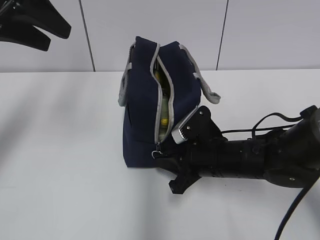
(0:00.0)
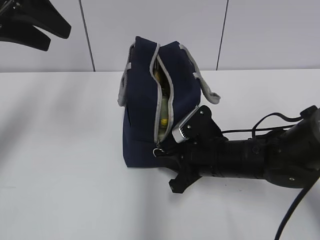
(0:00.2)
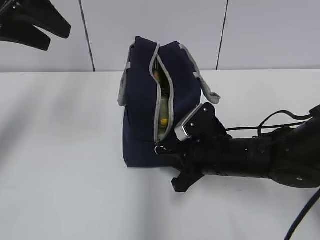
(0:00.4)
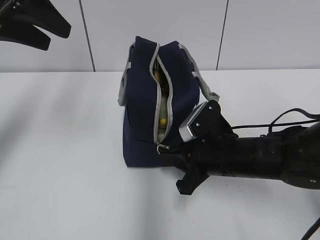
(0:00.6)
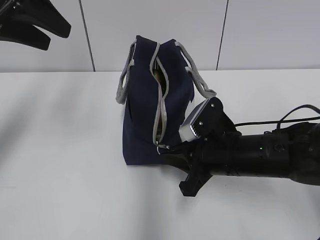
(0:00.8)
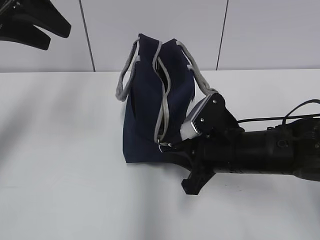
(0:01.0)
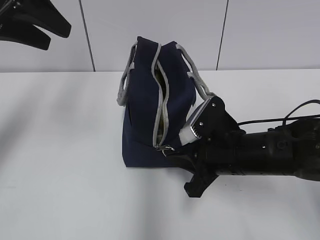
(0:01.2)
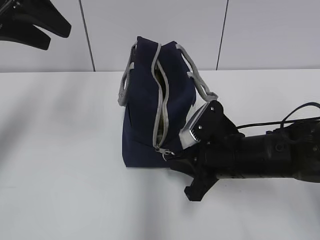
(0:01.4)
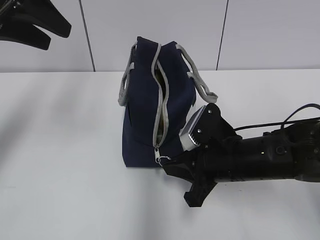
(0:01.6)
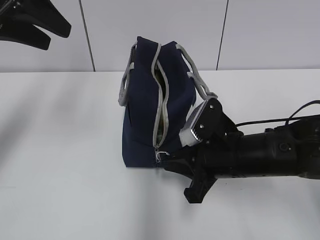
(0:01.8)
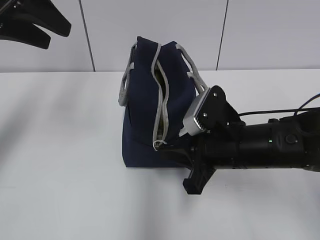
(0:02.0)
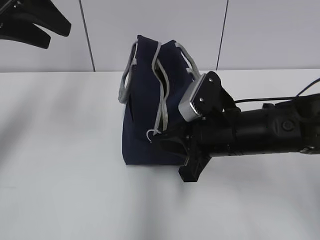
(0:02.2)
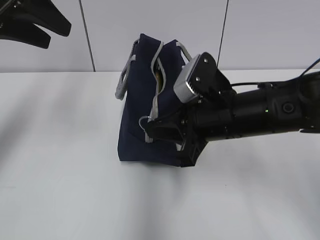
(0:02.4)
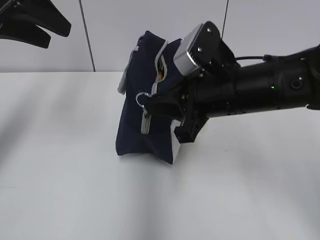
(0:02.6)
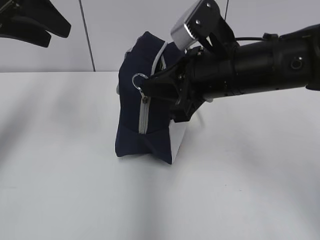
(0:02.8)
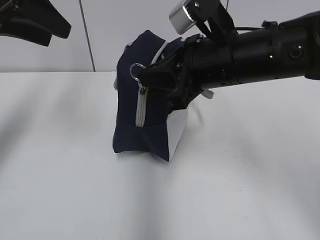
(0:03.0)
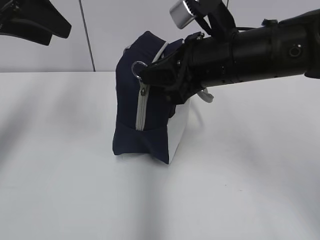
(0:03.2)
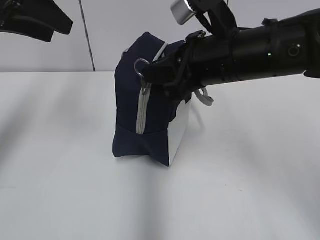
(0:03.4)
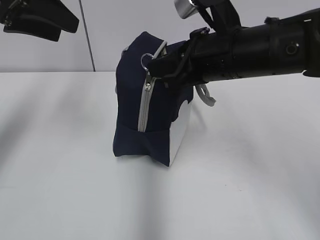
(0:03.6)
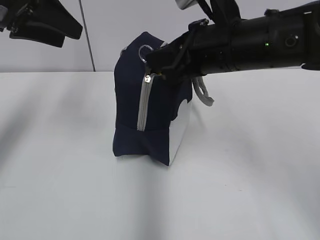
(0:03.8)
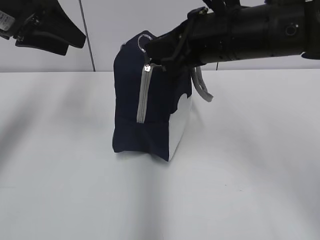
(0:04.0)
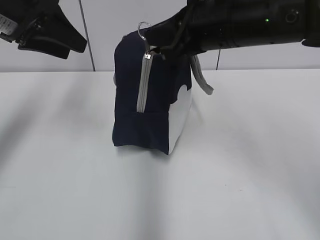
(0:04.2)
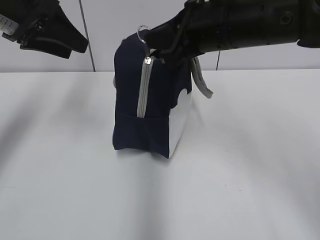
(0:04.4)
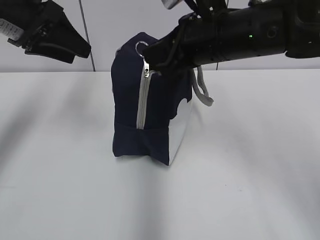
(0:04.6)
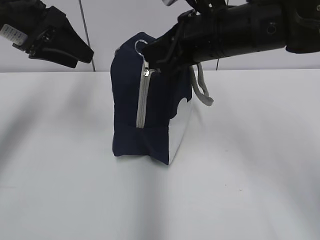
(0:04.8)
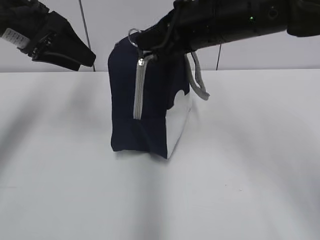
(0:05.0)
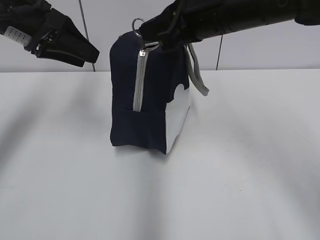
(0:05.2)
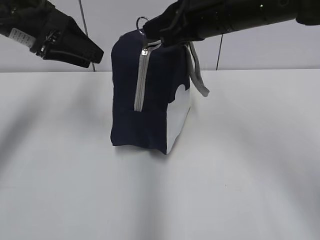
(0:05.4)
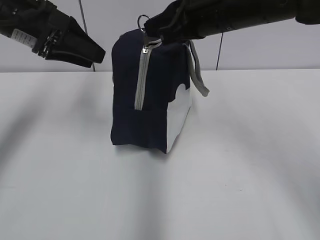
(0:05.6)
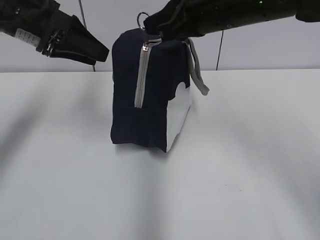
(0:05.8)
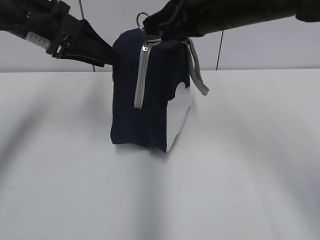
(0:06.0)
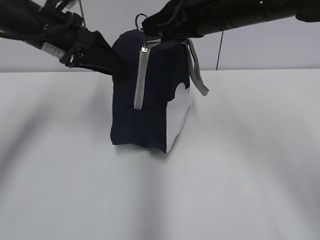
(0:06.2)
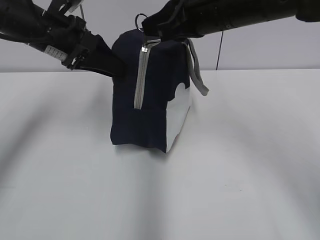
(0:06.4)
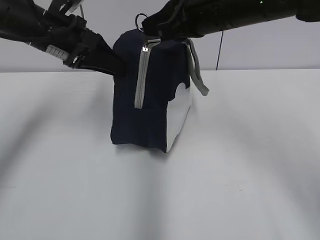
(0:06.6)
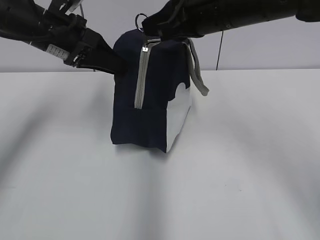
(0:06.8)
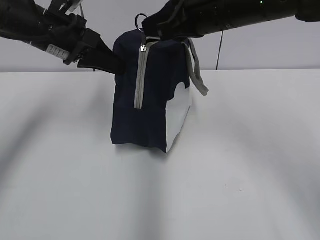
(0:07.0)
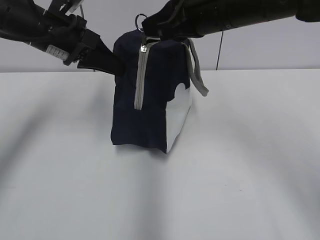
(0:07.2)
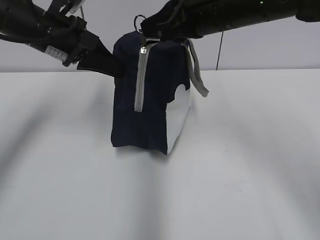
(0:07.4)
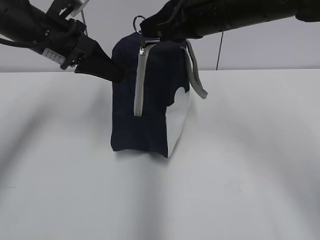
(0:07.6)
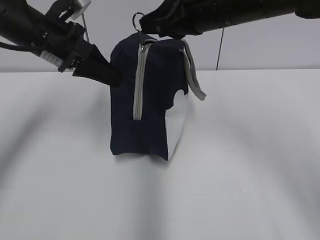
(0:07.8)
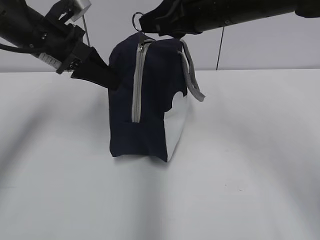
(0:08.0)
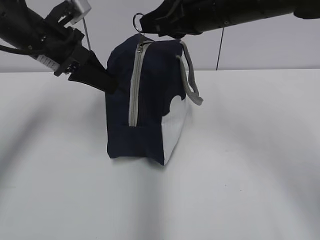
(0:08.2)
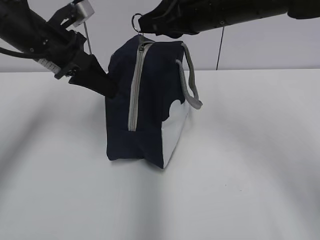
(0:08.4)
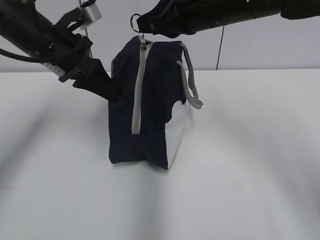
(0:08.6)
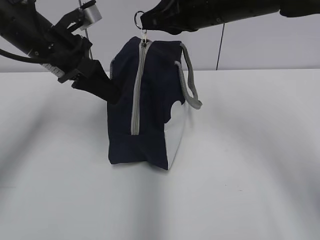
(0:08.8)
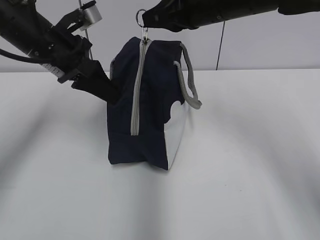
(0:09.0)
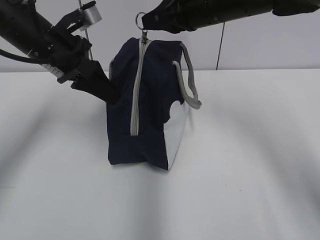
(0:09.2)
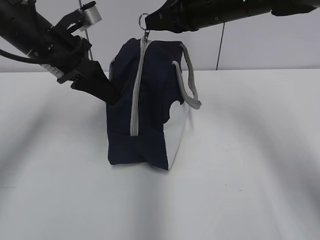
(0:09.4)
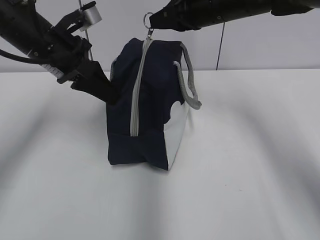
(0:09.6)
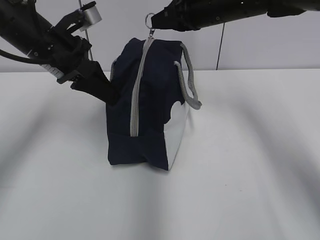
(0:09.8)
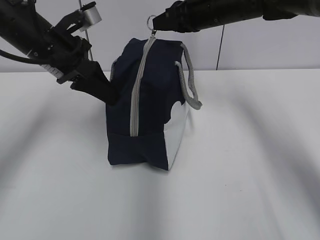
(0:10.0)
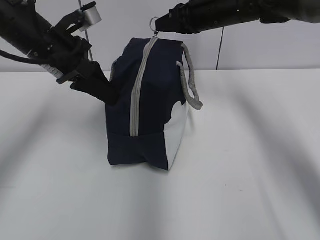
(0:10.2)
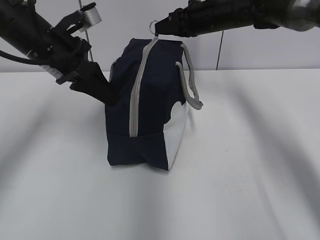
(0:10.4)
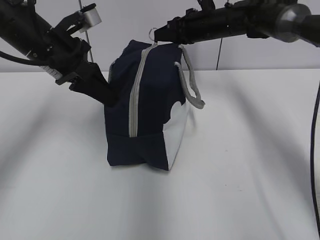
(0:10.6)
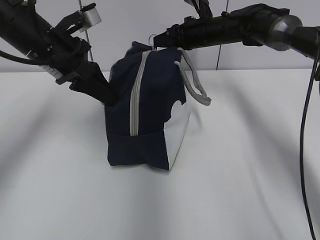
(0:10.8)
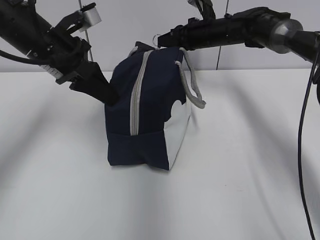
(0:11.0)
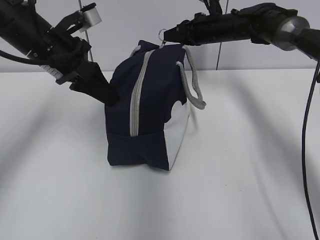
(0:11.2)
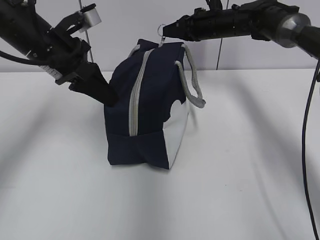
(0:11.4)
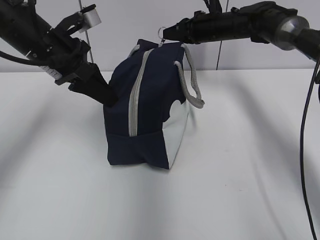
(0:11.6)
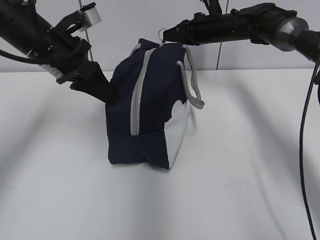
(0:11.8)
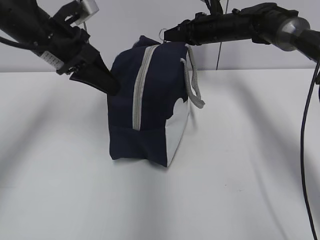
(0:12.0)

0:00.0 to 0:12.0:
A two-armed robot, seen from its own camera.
0:00.0 to 0:01.6: The grippers stay close to where they were, moving slightly.
0:01.6 to 0:03.0: The right gripper shifts roughly 15 cm upward.
0:03.0 to 0:04.4: The grippers make only small movements.
0:04.4 to 0:06.0: There are only small adjustments of the grippers.
0:06.0 to 0:07.6: The left gripper closes its fingers.
0:07.6 to 0:09.0: The grippers make only small movements.
0:09.0 to 0:10.4: The right gripper heads forward and downward, covering some 15 cm.
0:10.4 to 0:12.0: The right gripper ends up approximately 5 cm from where it was.

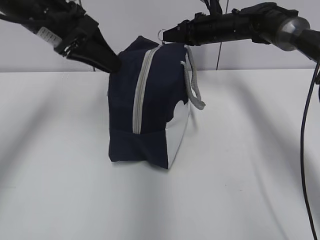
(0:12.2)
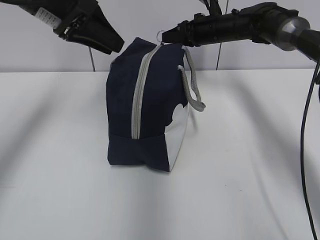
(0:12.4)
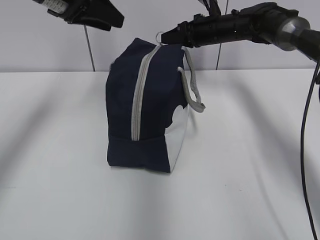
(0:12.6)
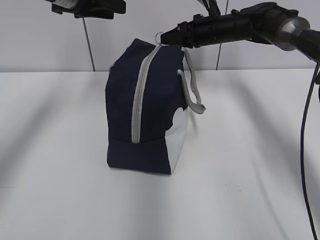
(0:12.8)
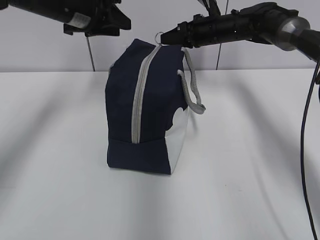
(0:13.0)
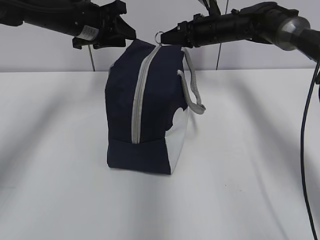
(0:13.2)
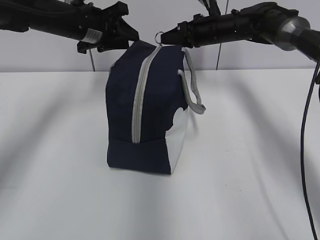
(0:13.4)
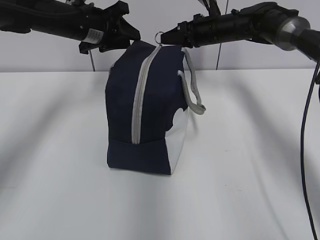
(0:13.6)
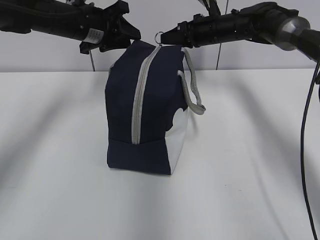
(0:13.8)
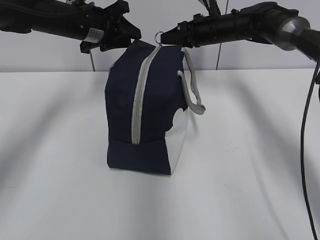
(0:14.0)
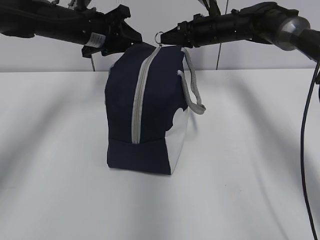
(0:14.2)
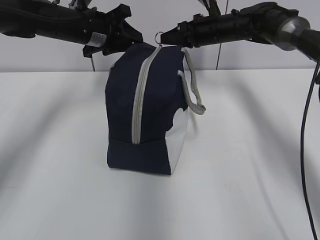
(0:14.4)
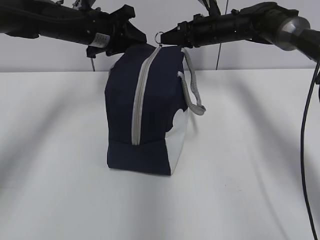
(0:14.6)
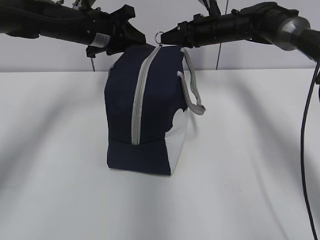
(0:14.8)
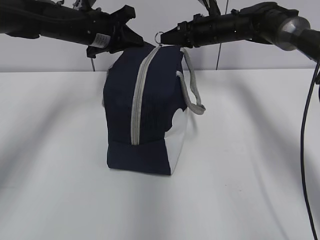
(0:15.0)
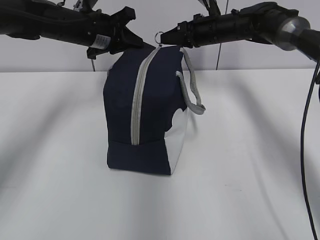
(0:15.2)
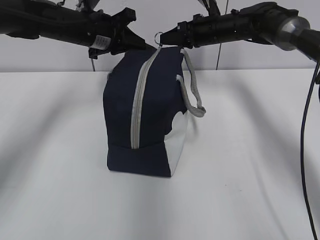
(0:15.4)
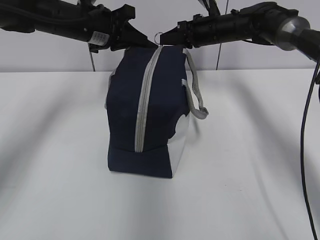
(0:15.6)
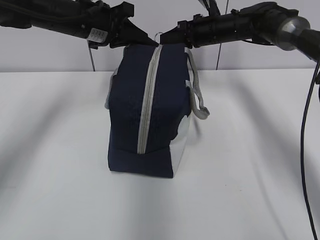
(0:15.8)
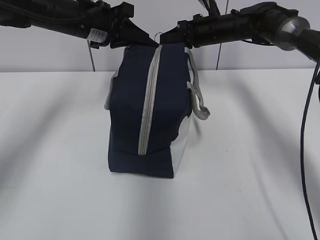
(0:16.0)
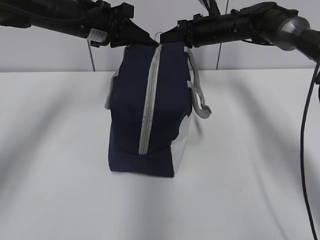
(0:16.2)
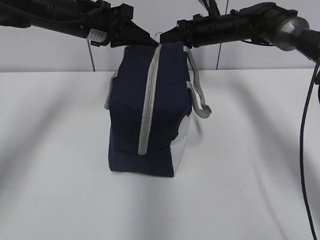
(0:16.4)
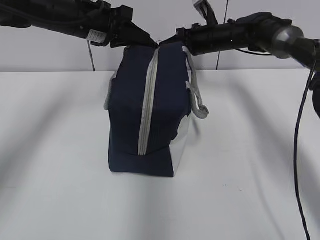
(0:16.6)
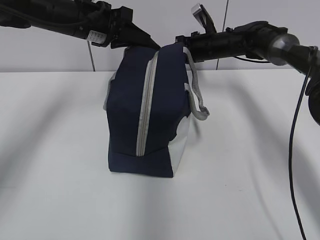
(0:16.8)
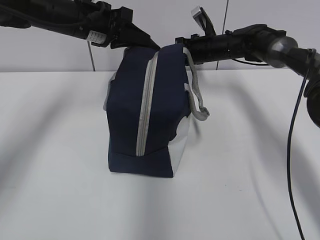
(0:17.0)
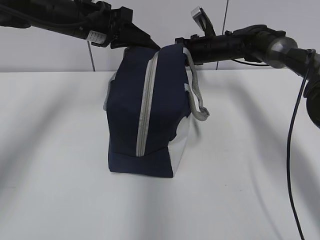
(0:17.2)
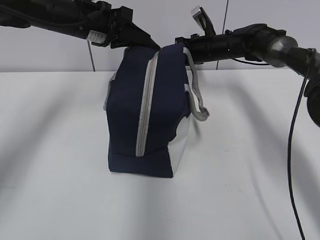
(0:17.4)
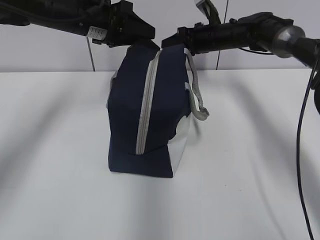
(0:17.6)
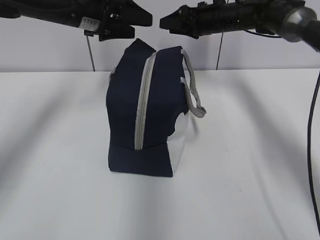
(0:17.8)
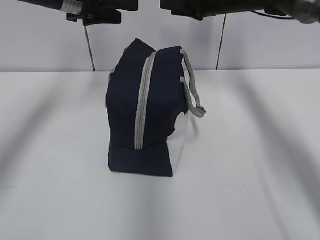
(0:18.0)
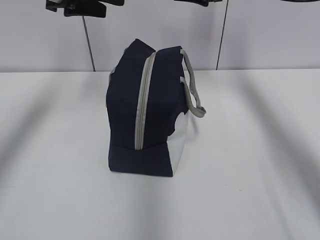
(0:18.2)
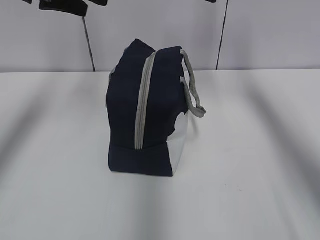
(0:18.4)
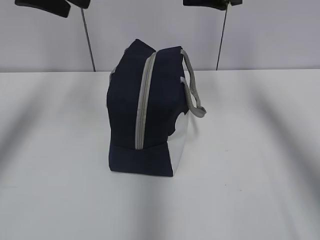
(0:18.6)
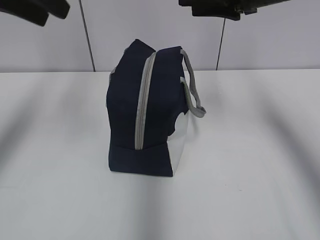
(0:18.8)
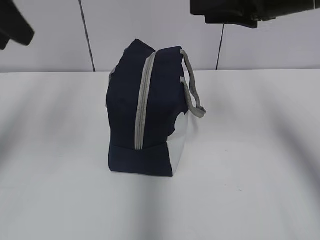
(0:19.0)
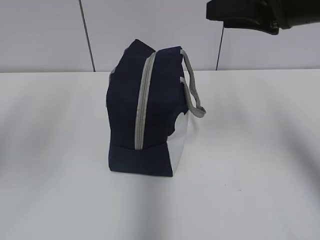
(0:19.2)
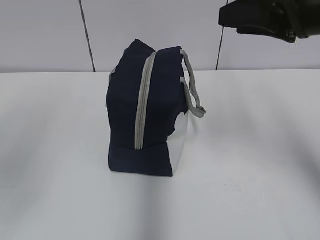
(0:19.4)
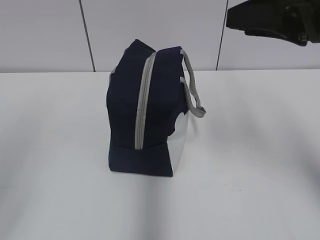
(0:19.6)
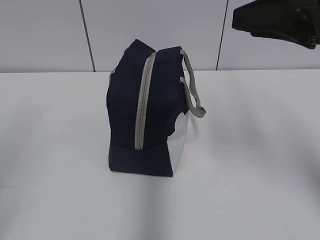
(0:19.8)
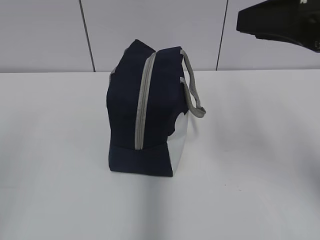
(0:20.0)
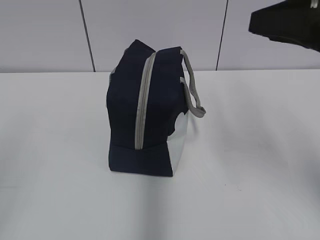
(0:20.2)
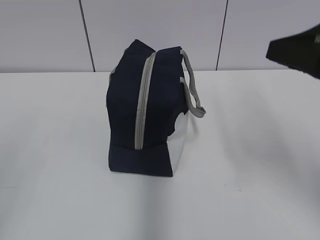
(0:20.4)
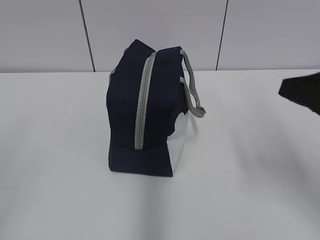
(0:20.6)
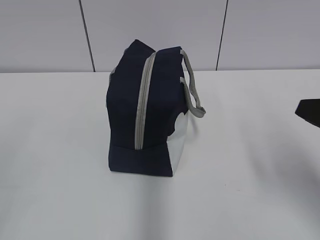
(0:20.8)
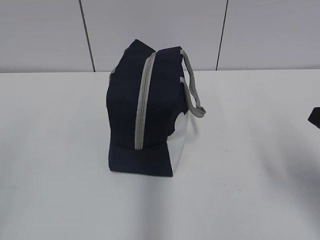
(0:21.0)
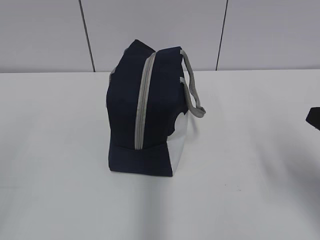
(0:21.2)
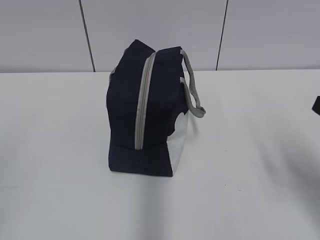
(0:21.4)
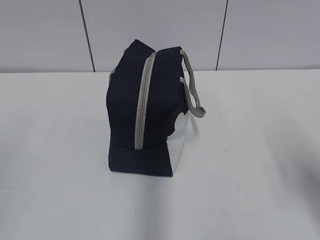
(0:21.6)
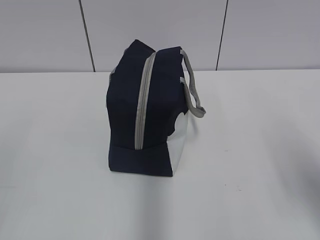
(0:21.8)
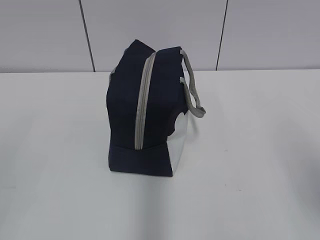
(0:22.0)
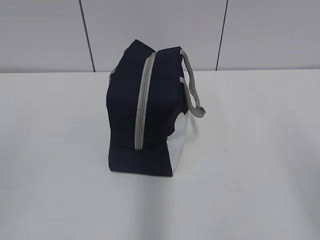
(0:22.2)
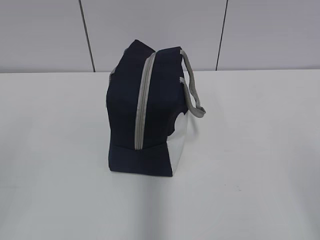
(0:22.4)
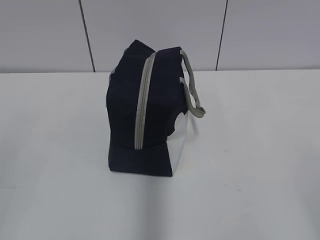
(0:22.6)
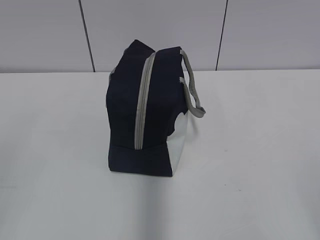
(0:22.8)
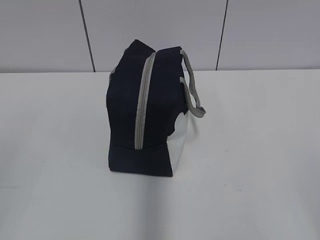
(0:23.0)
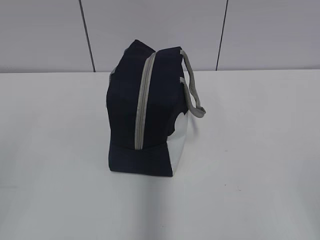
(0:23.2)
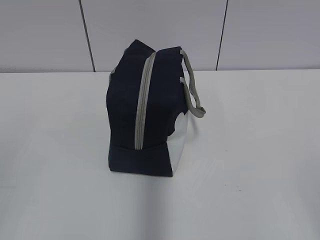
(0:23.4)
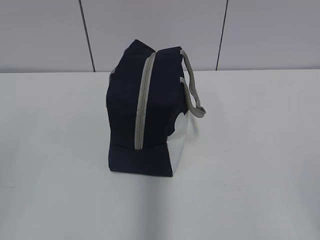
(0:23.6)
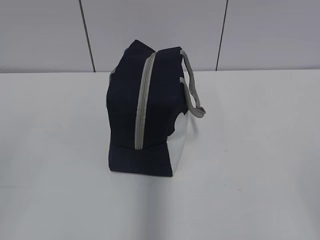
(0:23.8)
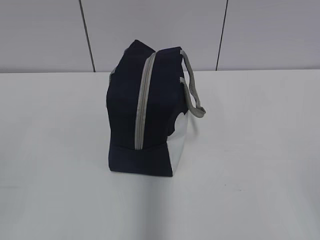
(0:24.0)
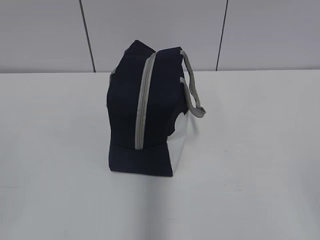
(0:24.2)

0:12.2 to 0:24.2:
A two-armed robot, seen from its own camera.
0:12.2 to 0:13.8: The left gripper moves forward, approximately 10 cm.
0:13.8 to 0:15.2: The left gripper closes.
0:15.2 to 0:16.6: The grippers make only small movements.
0:16.6 to 0:18.2: The left gripper shifts some 10 cm upward, and opens its fingers, while the right gripper moves upward, roughly 10 cm, and opens.
0:18.2 to 0:19.8: Both grippers travel together backward, some 30 cm.
0:19.8 to 0:21.2: The right gripper moves downward, backward and to the right, about 15 cm.
0:21.2 to 0:22.6: The right gripper is displaced backward by roughly 15 cm.
